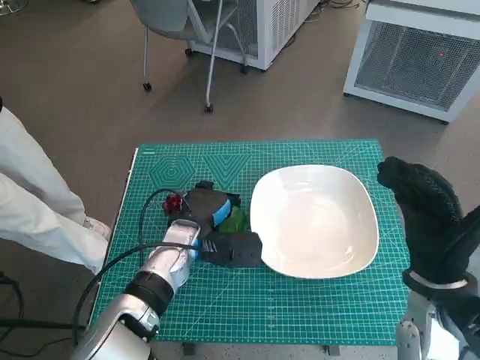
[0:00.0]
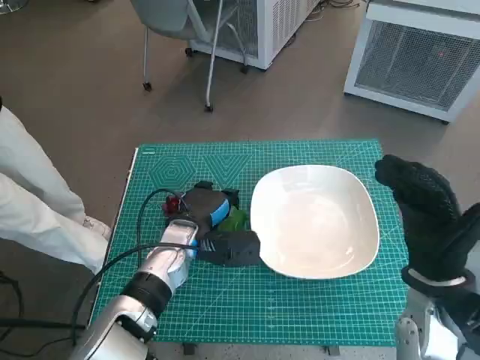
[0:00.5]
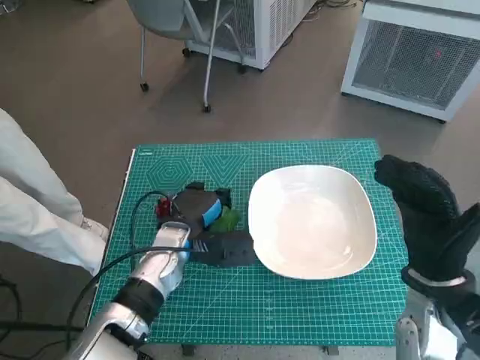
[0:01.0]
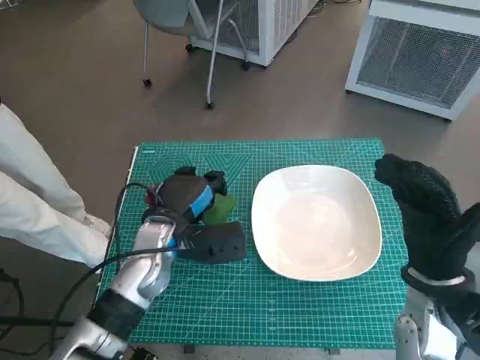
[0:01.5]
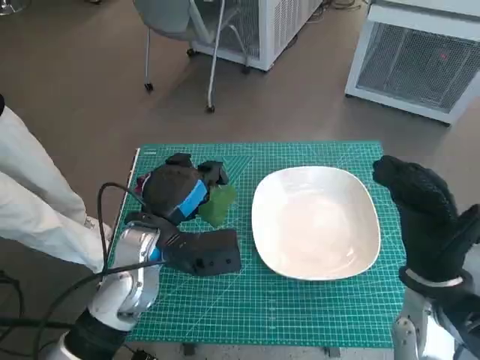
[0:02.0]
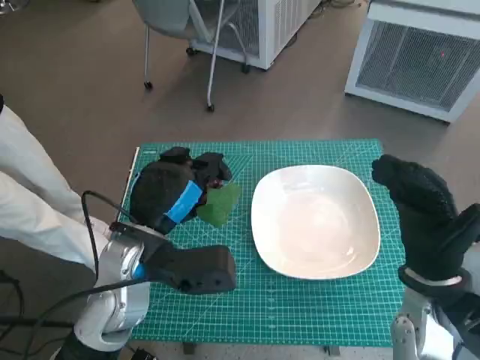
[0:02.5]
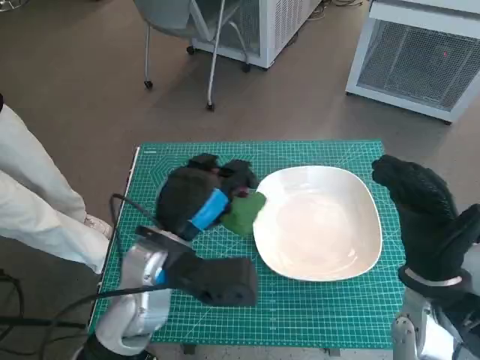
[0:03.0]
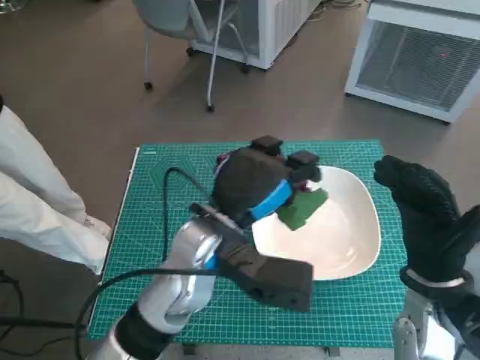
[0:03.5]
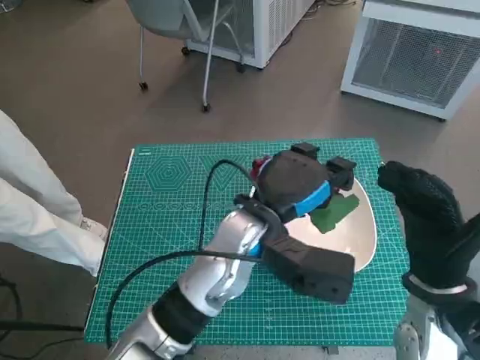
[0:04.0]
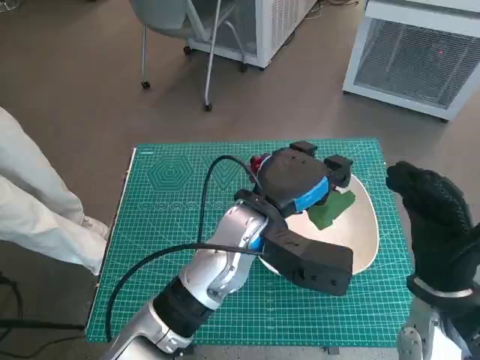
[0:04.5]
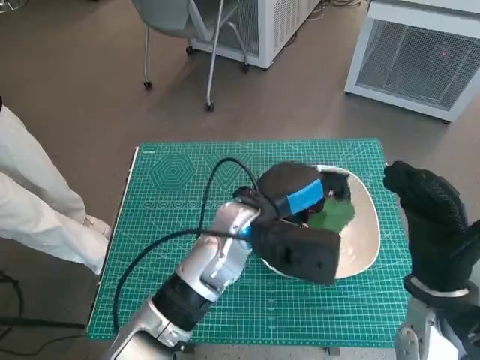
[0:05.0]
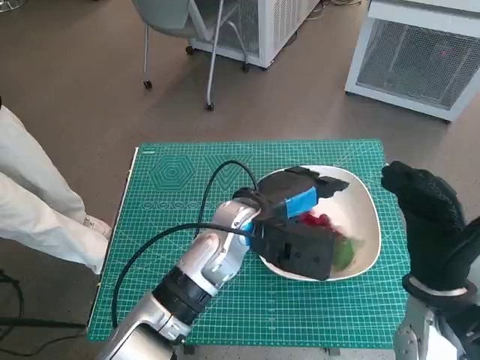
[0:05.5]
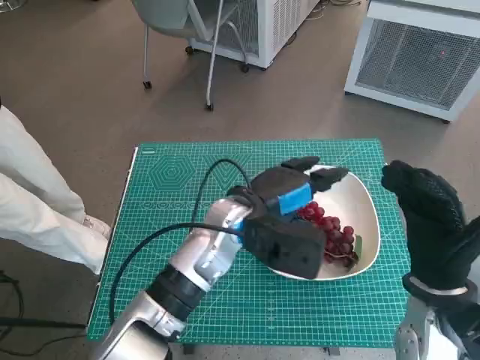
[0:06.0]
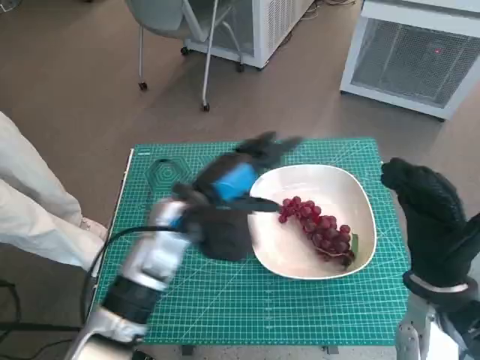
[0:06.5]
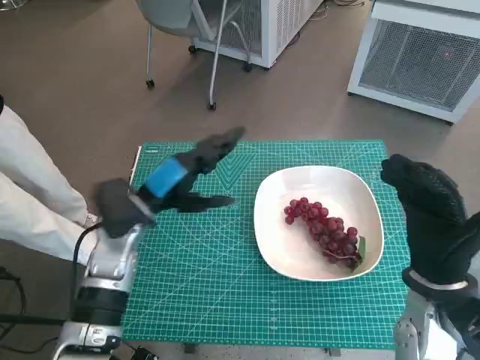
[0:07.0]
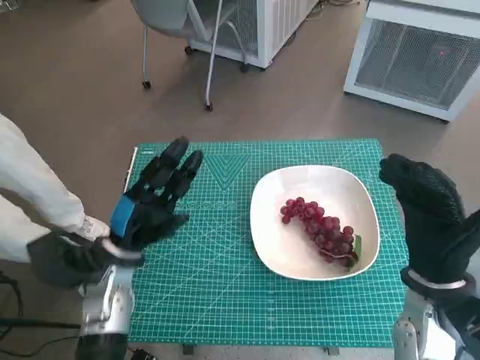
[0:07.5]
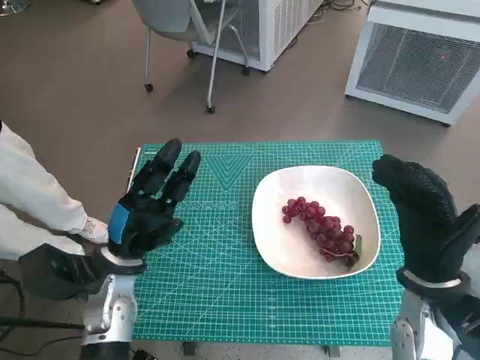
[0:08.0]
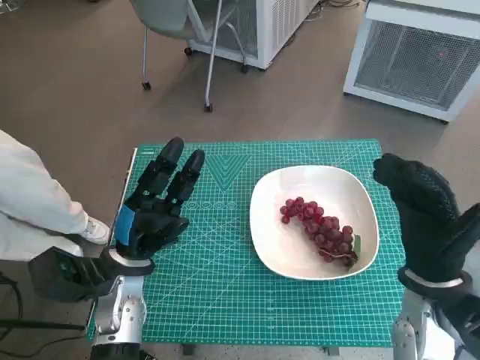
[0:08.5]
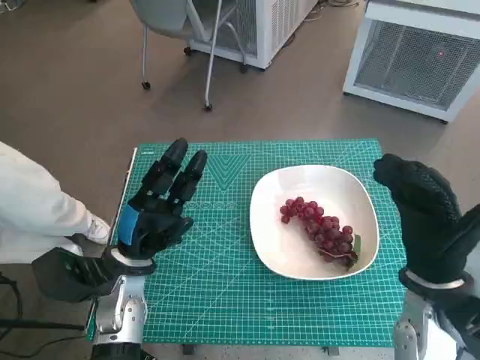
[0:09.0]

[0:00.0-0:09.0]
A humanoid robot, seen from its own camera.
Task of the whole recording: Pick up the grapes and put them on the plate.
Step, 0:01.0 to 0:06.0: Place the grapes in the plate with left hand.
0:00.0 to 0:02.0: The left hand shifts approximately 10 cm upward and backward.
0:02.0 to 0:04.5: The left hand moves to the right, approximately 15 cm.
0:04.5 to 0:07.0: The left hand moves to the left, roughly 15 cm.
0:07.0 to 0:09.0: The left hand moves downward and backward, roughly 10 cm.
